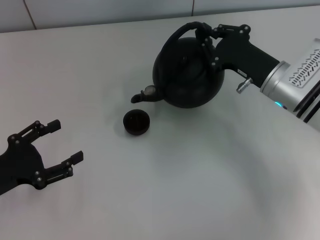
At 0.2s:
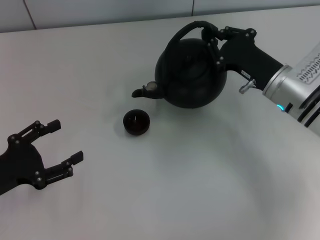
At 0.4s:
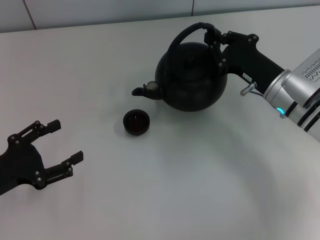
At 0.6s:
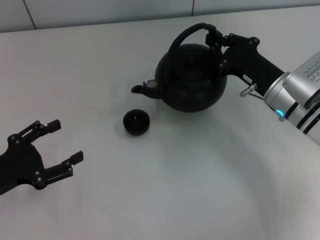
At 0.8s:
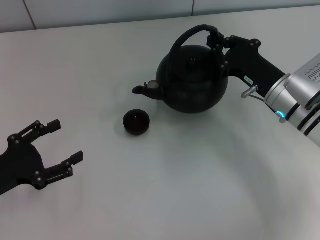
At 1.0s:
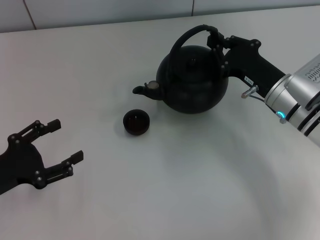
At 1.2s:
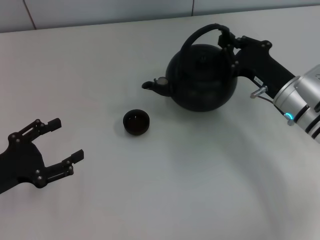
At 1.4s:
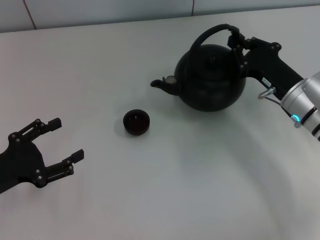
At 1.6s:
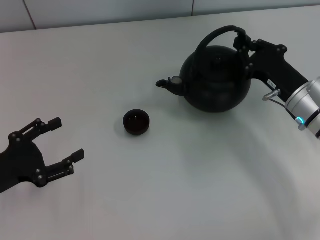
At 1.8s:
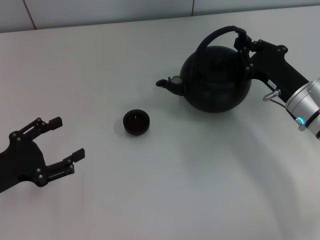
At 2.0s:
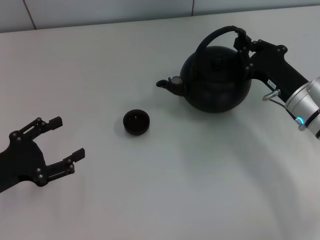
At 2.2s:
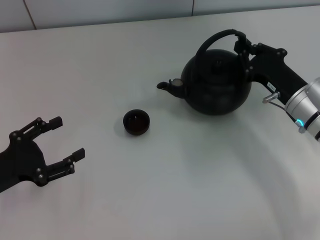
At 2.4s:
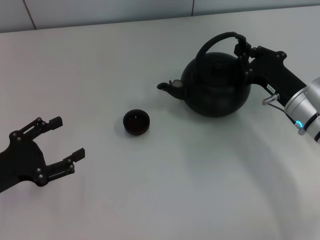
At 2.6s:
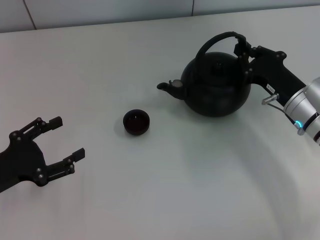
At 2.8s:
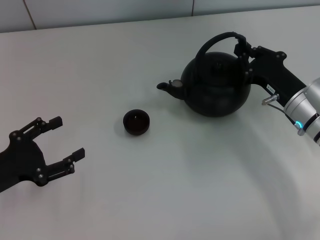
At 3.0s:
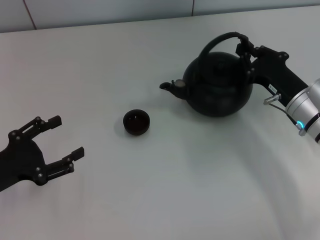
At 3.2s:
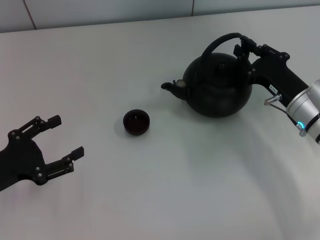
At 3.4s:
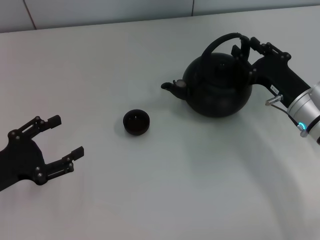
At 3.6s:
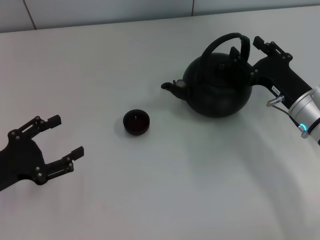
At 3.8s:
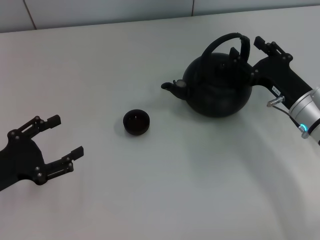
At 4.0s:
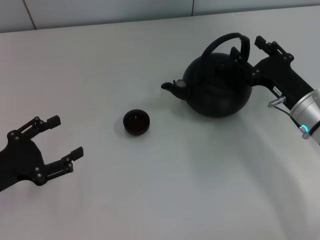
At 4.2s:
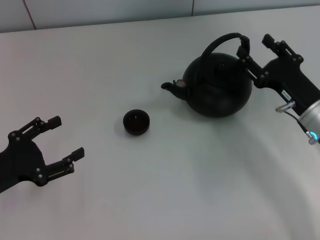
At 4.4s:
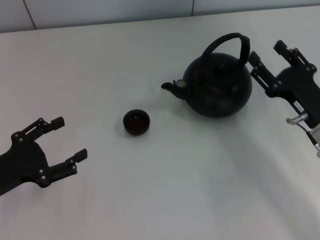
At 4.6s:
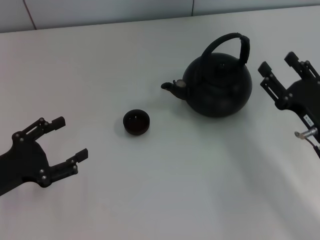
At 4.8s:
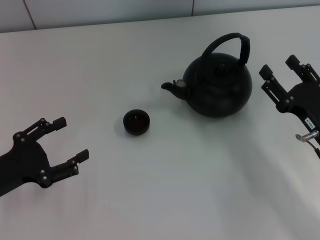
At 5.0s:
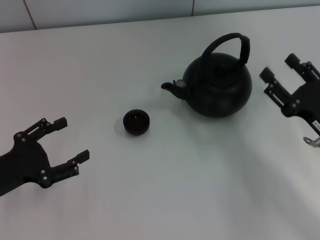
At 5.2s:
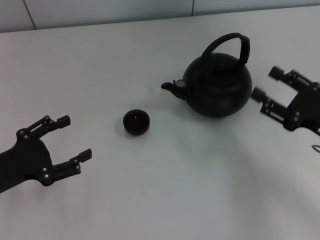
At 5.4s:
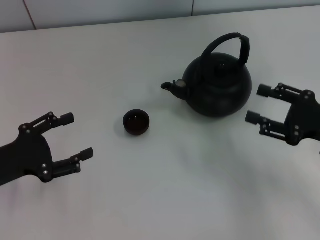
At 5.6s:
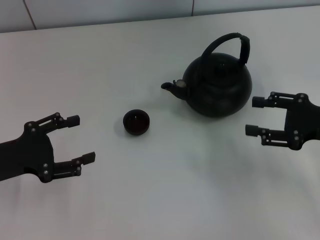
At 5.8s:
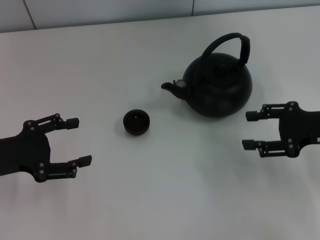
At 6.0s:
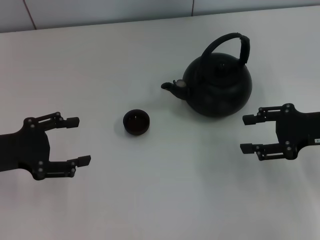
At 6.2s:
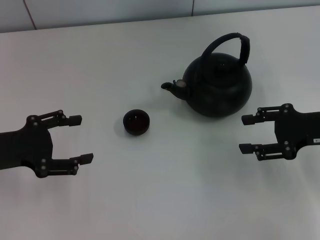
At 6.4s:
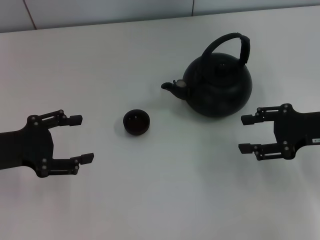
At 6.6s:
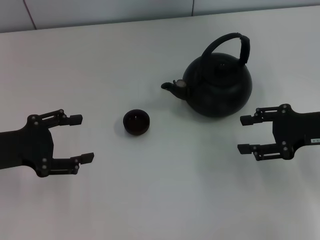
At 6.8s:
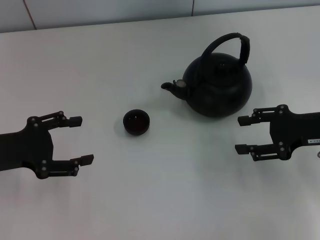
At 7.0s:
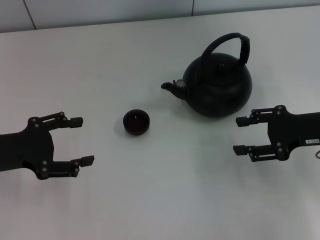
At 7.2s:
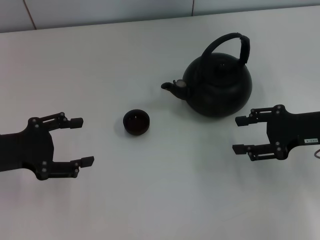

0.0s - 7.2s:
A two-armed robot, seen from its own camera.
Task of the whole recording: Grasp the handle of the teapot with one hand and pour tea into the teacup.
Step, 1.8s - 5.0s: Put down the teapot with the right gripper.
0.0s - 1.4s: The grippers make only small movements.
1.4s - 2.8s: The two grippers keep their place.
2.8s - 4.4s: The right gripper heads backward, covering some 5 cm, and opens up.
4.4s - 5.8s: The left gripper shifts by some 5 cm, while the right gripper travels upward and to the right by about 10 cm.
5.8s - 7.2s: The grippers move only a little.

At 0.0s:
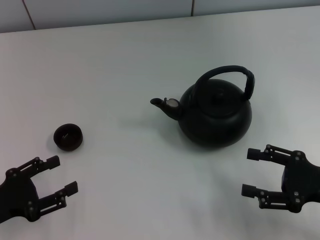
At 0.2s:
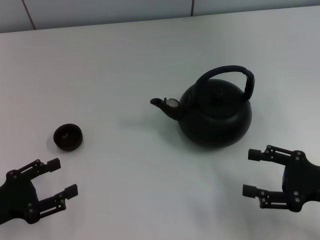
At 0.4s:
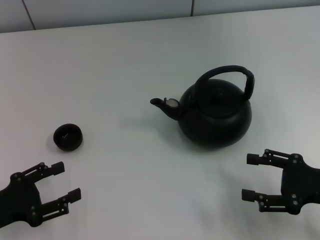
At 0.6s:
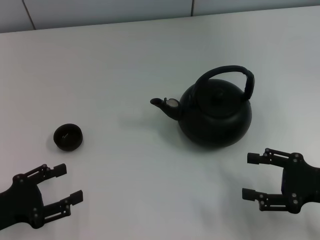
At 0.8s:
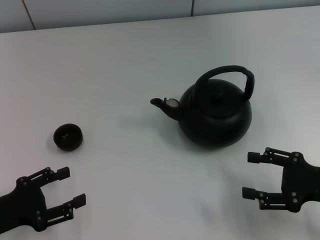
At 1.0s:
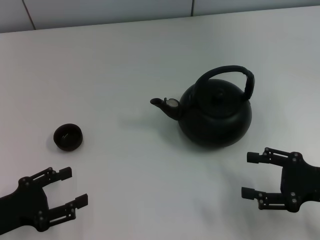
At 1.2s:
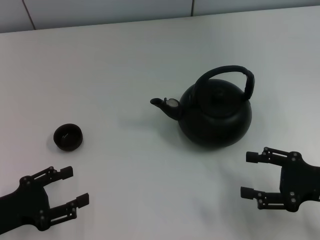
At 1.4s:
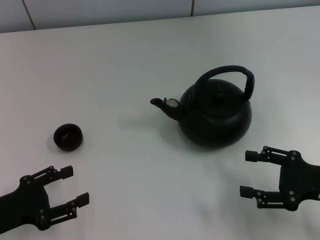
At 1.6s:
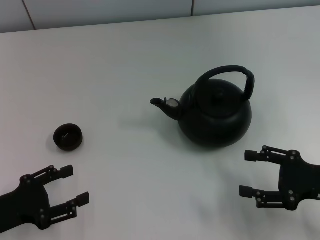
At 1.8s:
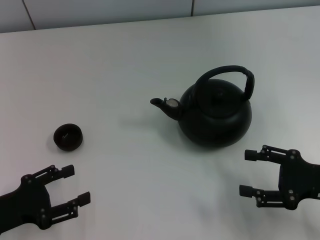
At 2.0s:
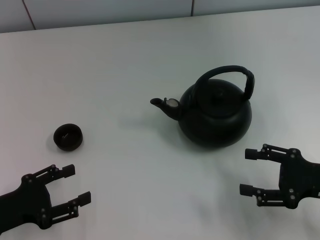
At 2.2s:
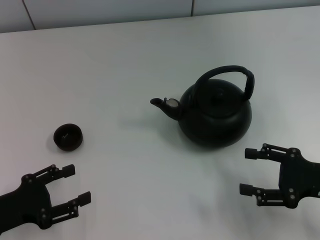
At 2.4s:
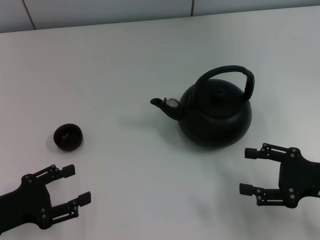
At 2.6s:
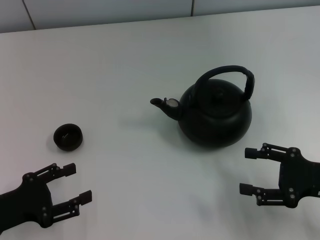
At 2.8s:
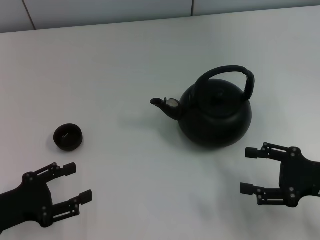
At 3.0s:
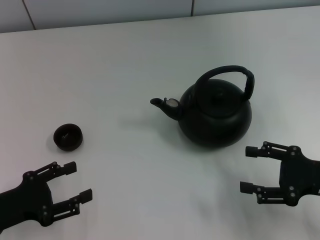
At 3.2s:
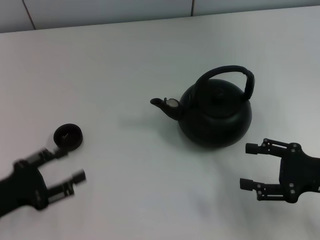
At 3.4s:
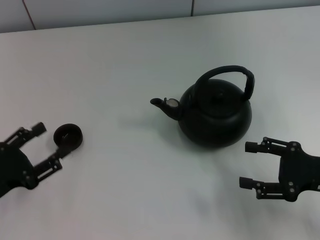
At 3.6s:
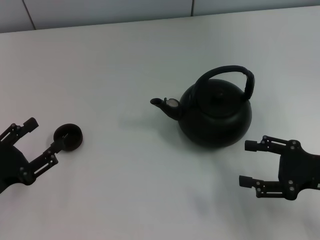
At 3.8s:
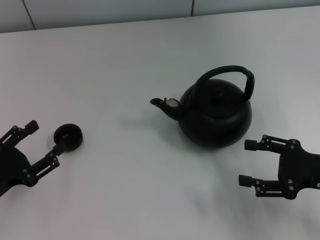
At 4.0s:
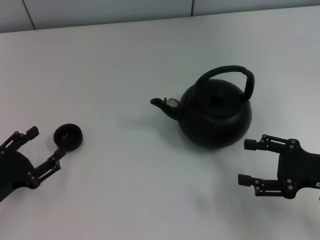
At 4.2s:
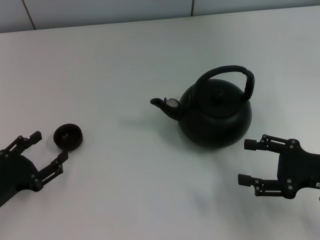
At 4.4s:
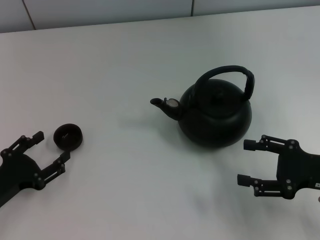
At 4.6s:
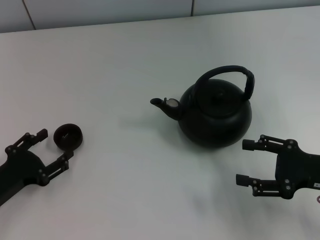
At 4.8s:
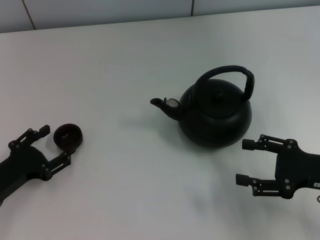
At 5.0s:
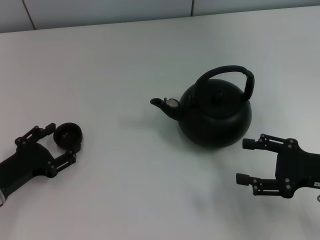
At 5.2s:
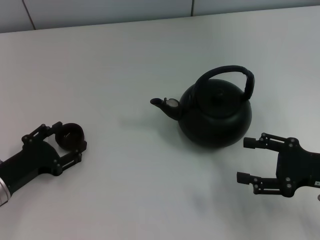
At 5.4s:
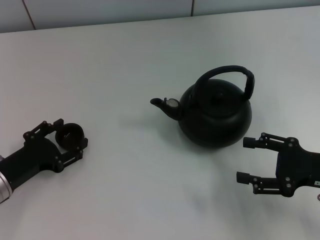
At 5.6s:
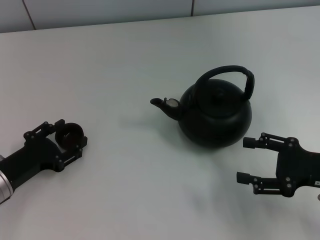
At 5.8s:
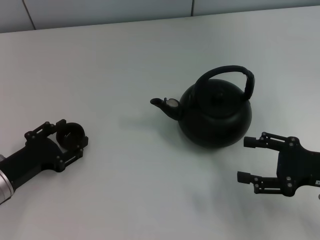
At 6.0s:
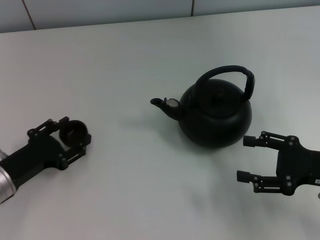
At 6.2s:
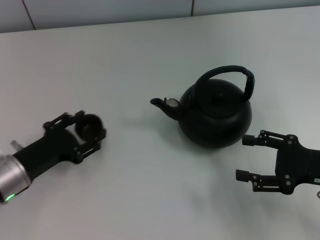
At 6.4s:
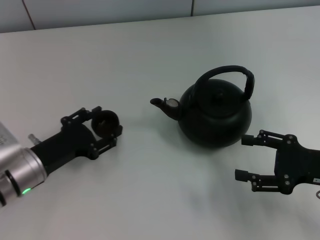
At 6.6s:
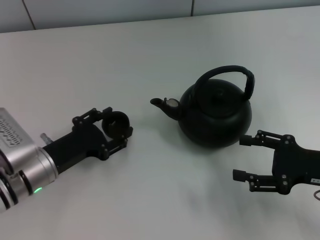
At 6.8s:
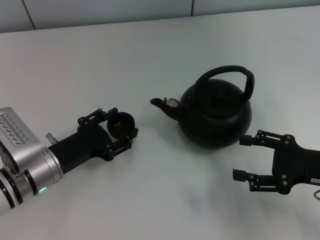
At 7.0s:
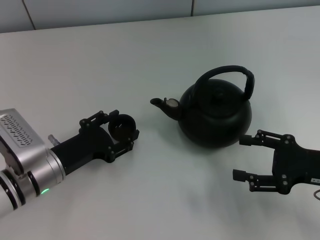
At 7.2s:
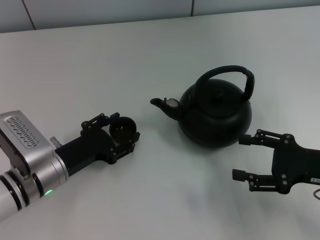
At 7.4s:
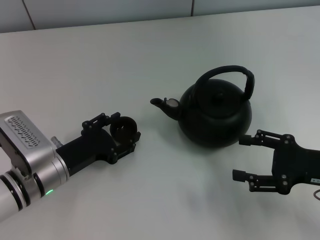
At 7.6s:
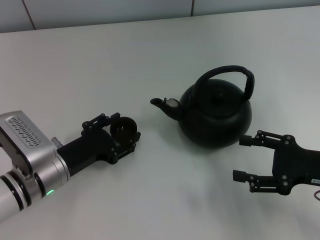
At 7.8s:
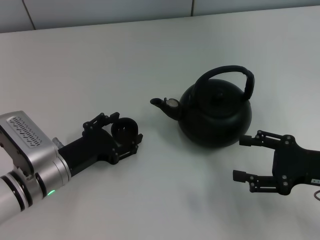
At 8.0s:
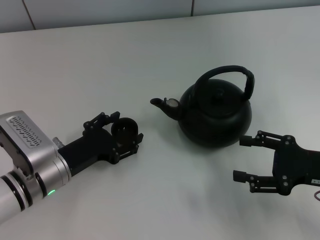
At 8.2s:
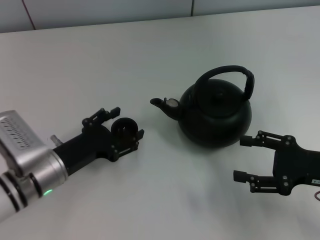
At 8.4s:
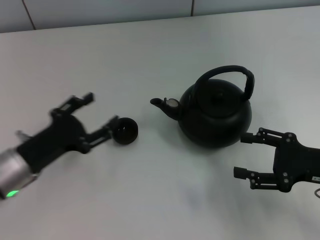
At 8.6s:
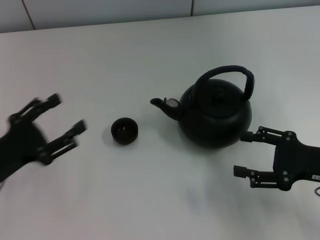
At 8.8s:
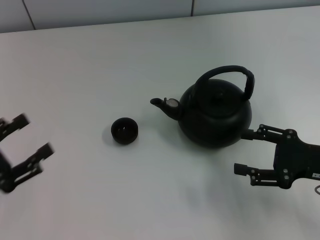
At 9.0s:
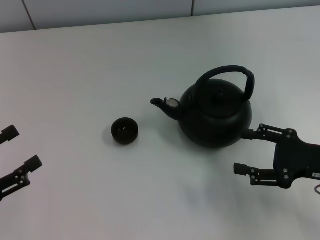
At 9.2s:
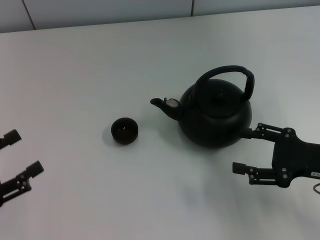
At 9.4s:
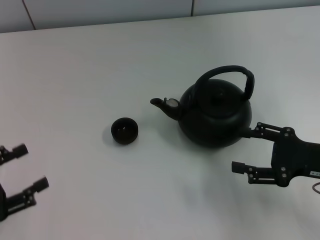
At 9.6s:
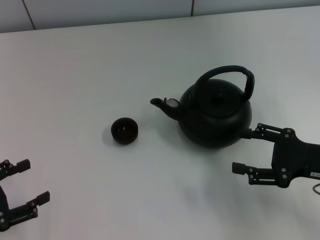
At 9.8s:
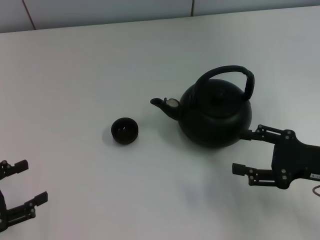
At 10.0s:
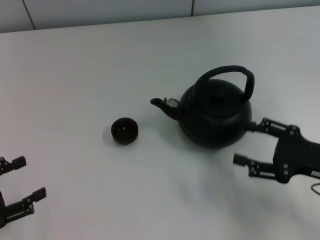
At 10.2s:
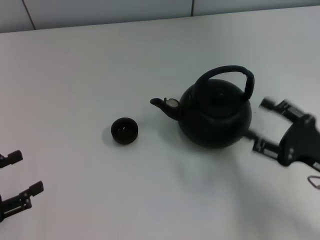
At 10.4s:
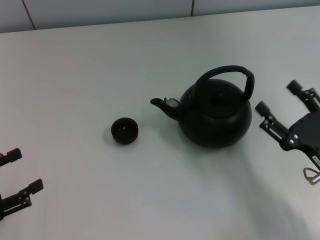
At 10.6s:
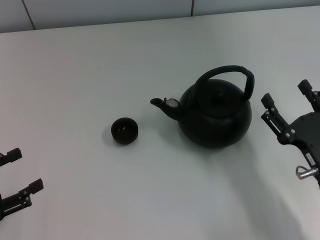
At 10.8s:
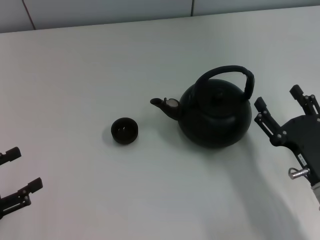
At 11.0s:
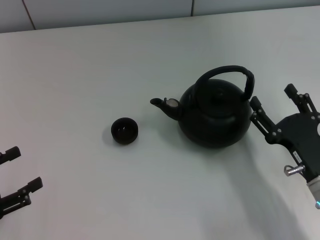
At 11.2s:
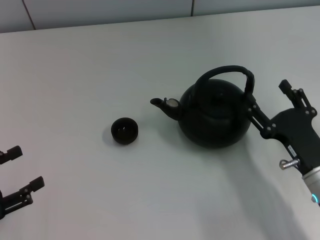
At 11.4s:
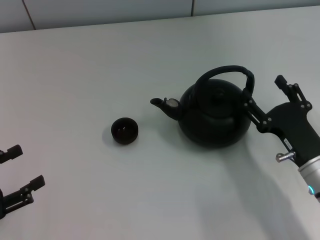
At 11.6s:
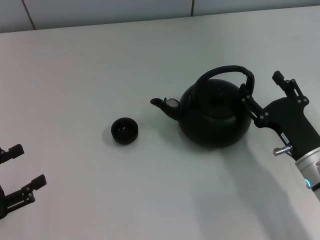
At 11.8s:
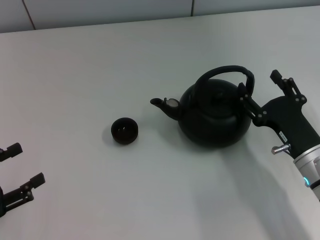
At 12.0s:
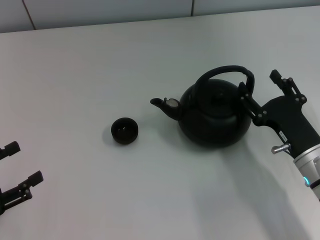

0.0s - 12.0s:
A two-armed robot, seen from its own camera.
Task of the whole recording: Grasp the handle of the teapot with one hand and pour tea into the teacup.
Step, 0.0s - 6.2s: Pick up the teacup with the left gripper.
Step, 6.4s - 8.2s: Place the teacup in the center of view with the left gripper.
0.0s - 1.6s: The grippers stay close to where they were, moving slightly.
1.6s - 3.0s: Both grippers stay put.
4.4s - 6.0s: The left gripper ends up approximately 5 cm from where it was, and closes its fingers.
6.0s - 7.6s: The left gripper heads to the right, covering roughly 5 cm.
7.6s - 9.0s: The left gripper travels to the left and backward by about 15 cm, and opens its fingers.
9.0s - 10.4s: The right gripper moves some 5 cm.
10.4s - 12.0s: The right gripper moves approximately 5 cm.

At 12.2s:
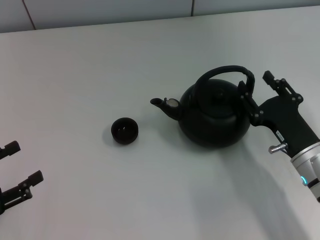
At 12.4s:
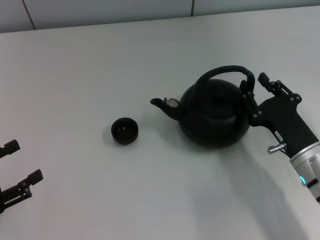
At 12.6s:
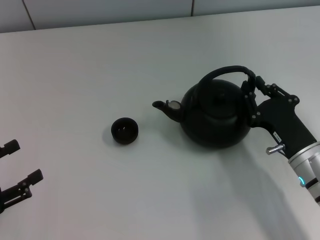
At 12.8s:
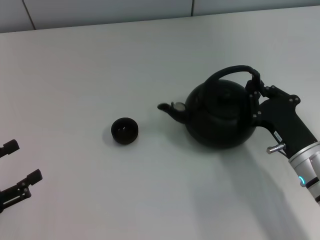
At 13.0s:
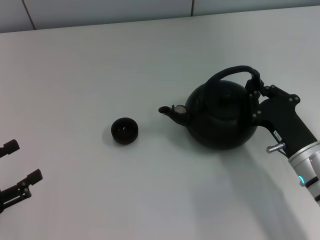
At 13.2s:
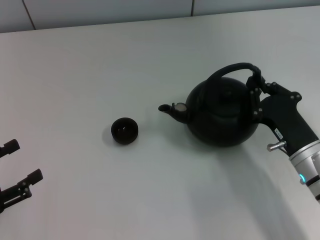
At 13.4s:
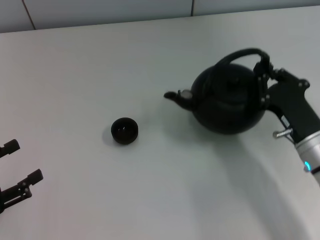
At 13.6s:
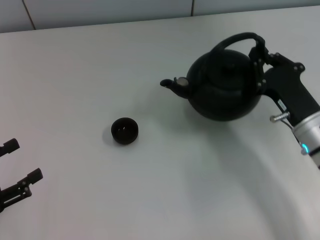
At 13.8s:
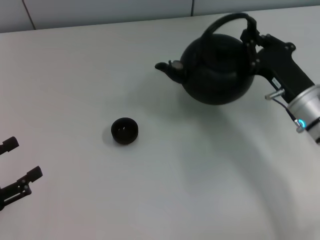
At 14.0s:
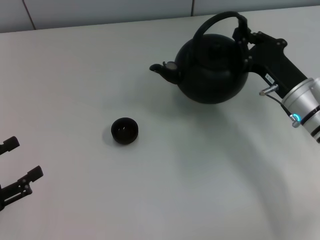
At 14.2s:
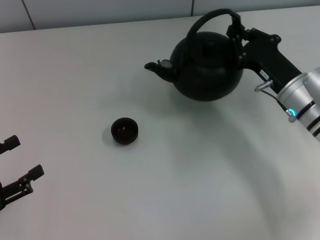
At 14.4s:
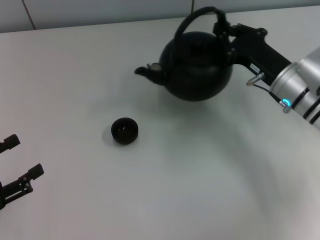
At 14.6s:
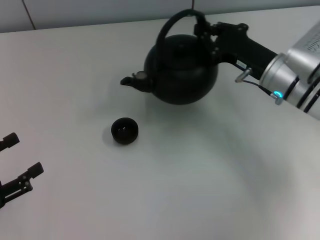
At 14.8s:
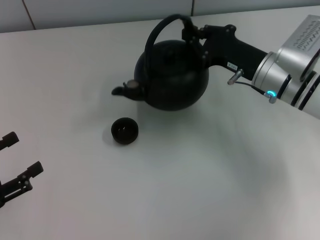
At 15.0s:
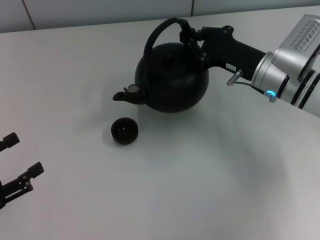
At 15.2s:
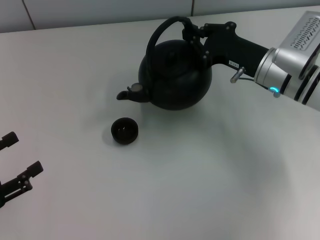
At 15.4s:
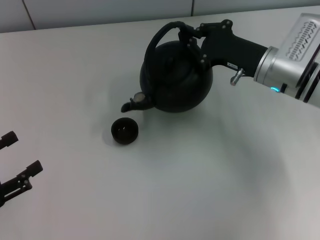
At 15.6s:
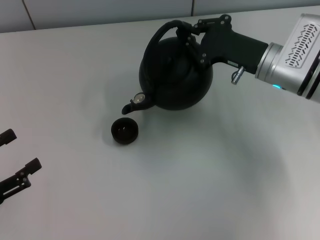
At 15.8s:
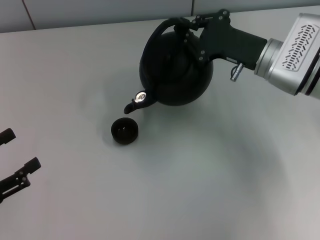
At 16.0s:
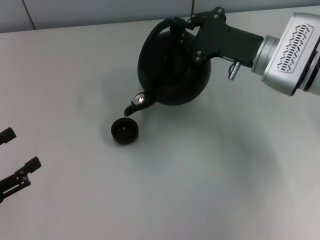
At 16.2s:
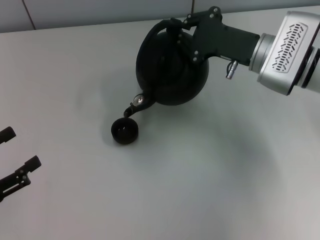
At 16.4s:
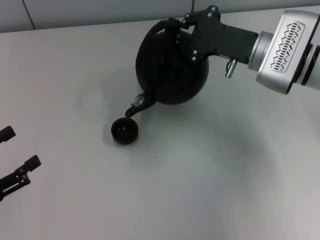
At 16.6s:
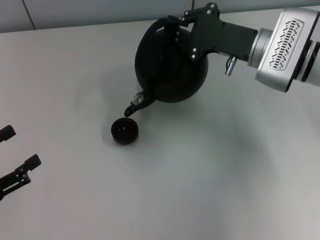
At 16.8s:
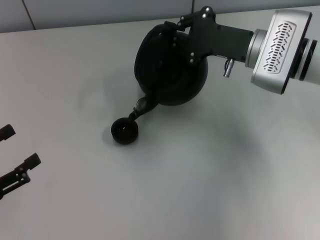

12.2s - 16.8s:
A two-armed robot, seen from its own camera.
Task of the whole recording: Grasp the handle of the teapot with one hand and pour tea into the teacup.
12.2s - 13.8s: The right gripper moves forward, some 10 cm, and closes up.
13.8s - 15.2s: The right gripper travels forward by some 5 cm.
